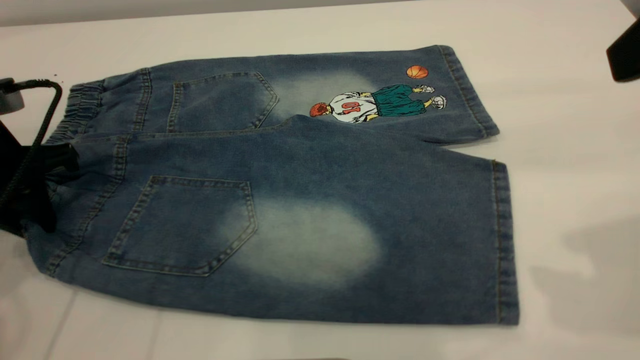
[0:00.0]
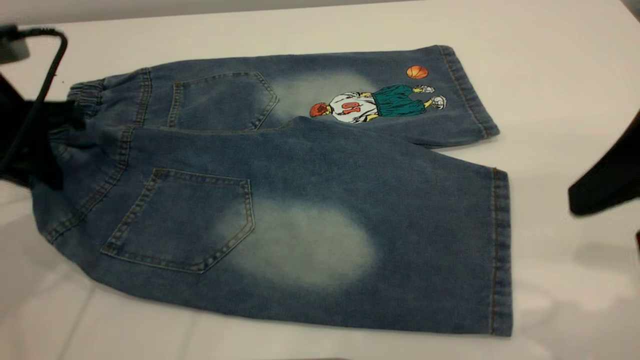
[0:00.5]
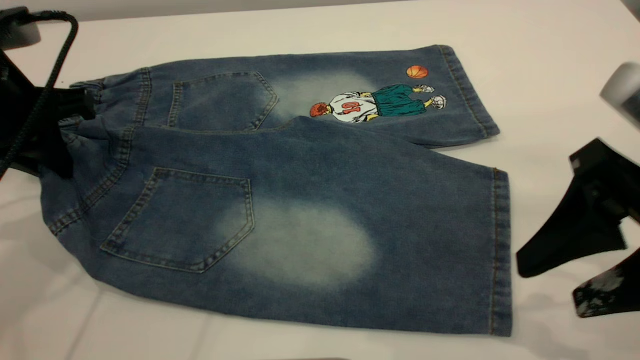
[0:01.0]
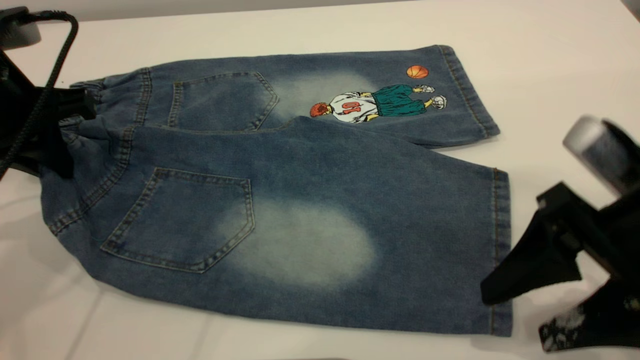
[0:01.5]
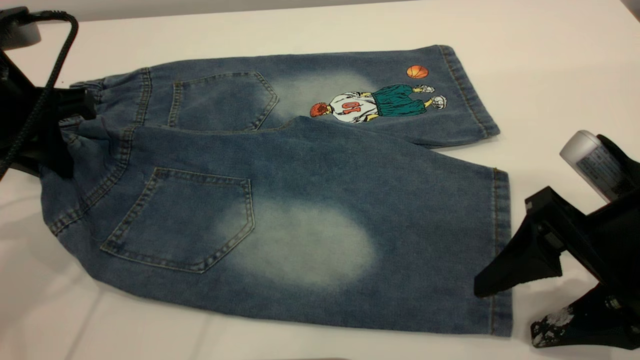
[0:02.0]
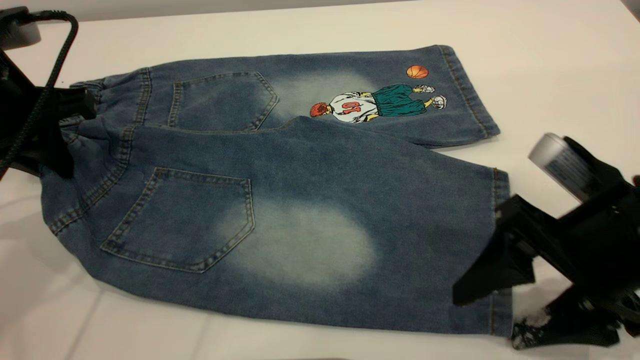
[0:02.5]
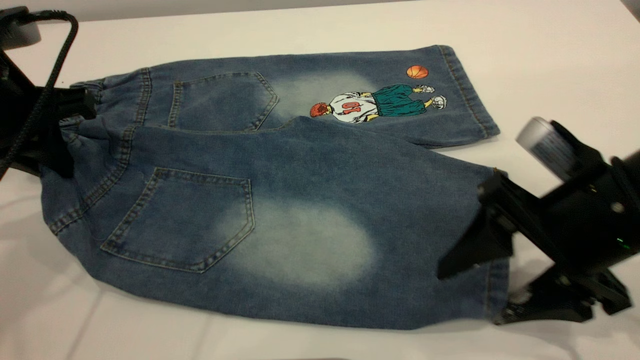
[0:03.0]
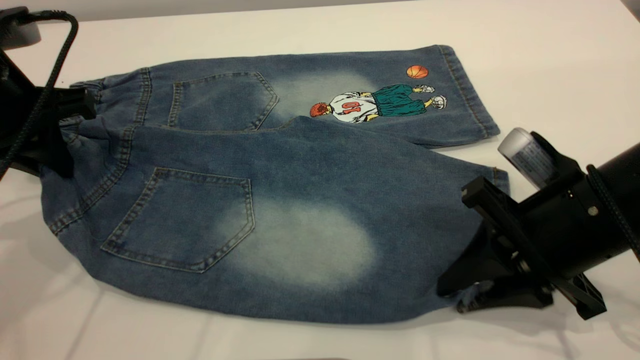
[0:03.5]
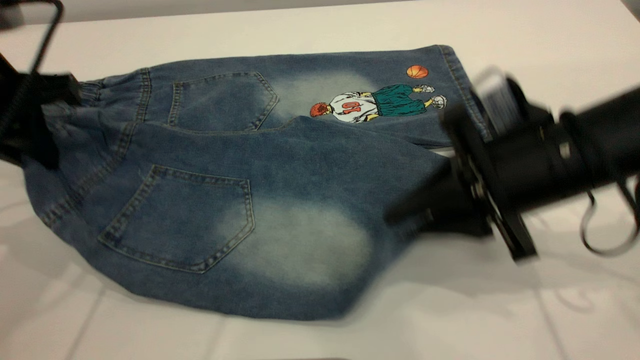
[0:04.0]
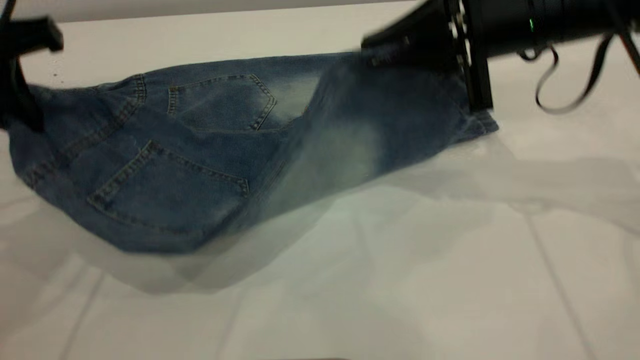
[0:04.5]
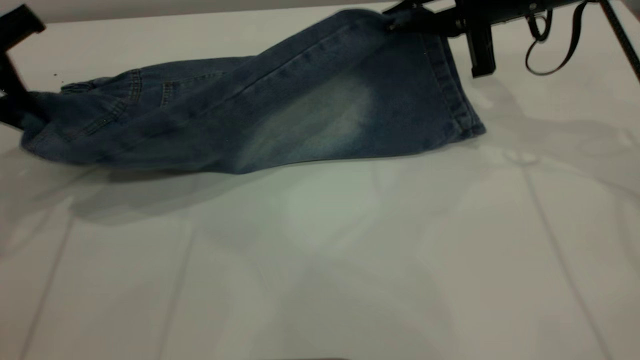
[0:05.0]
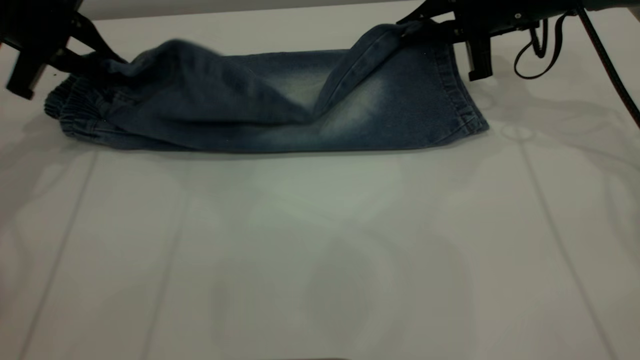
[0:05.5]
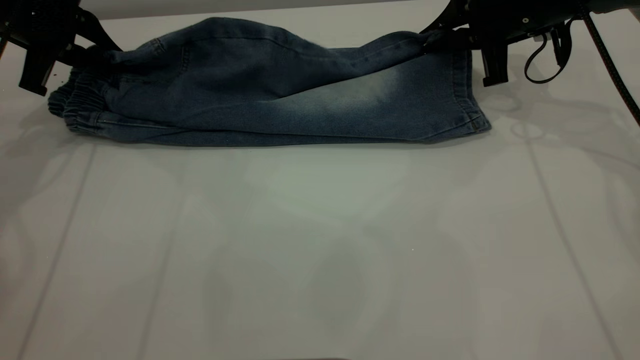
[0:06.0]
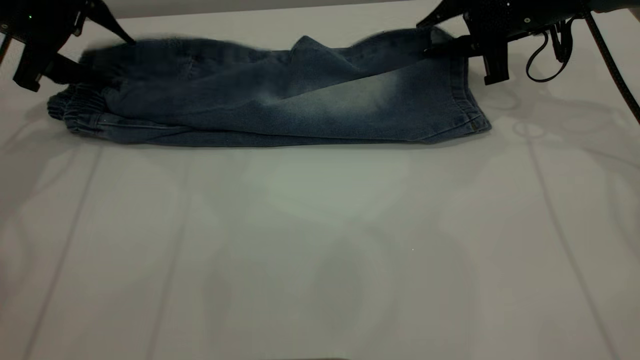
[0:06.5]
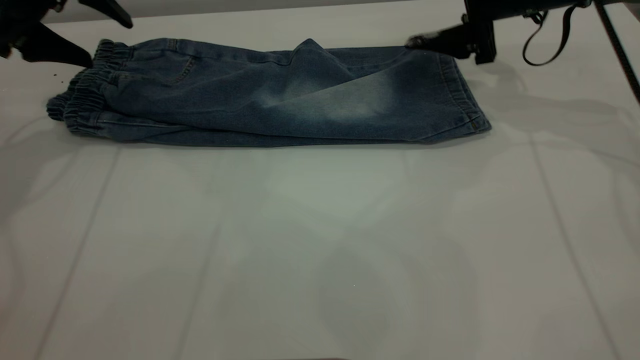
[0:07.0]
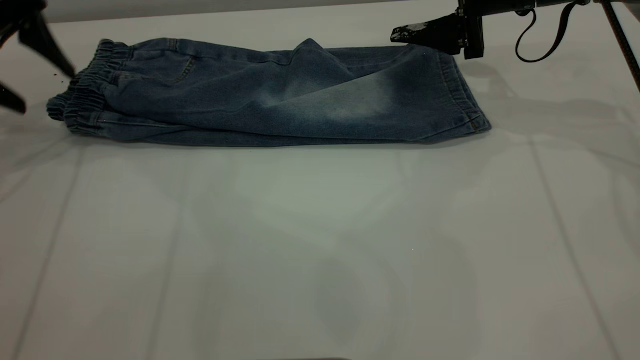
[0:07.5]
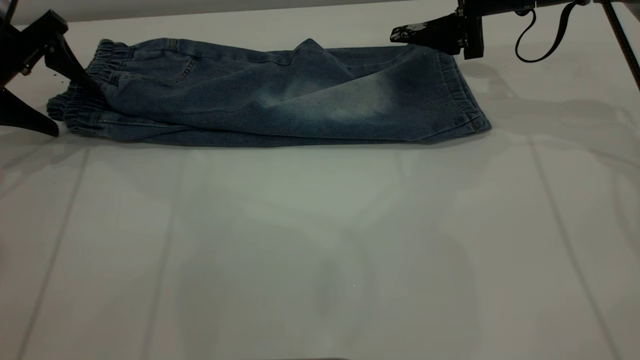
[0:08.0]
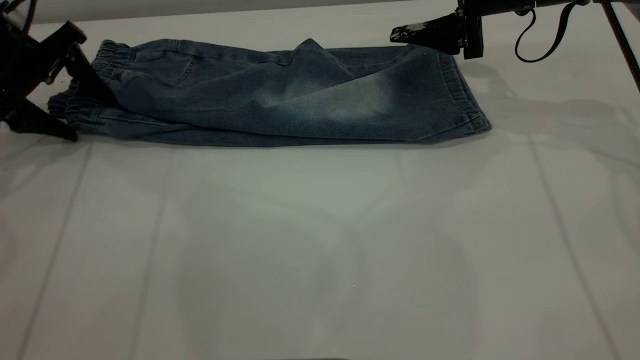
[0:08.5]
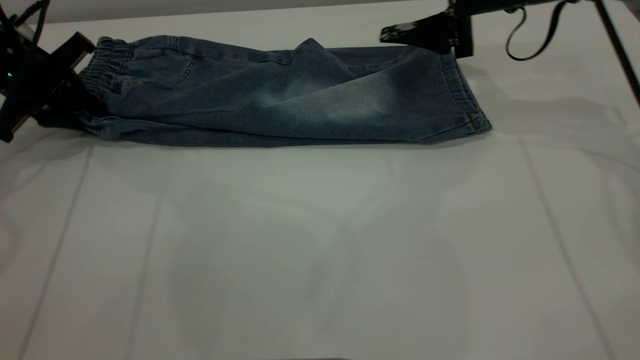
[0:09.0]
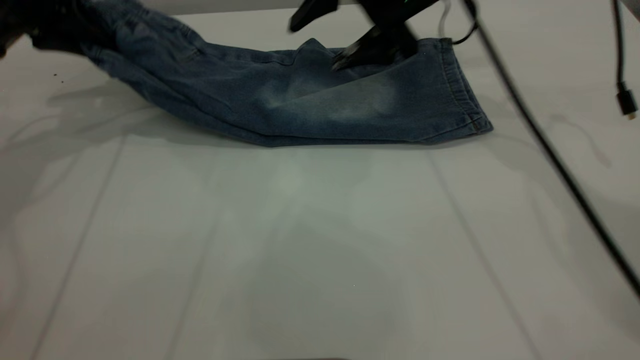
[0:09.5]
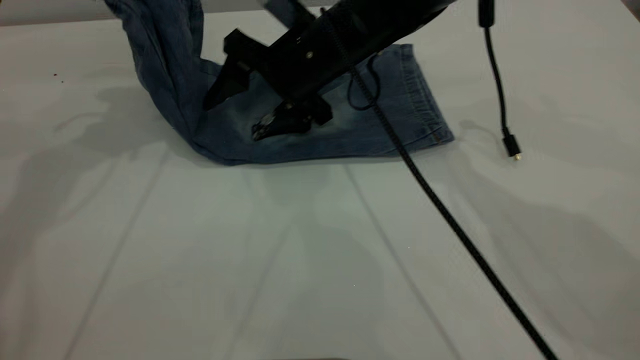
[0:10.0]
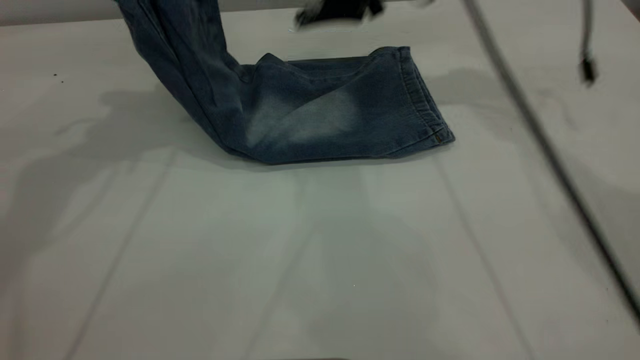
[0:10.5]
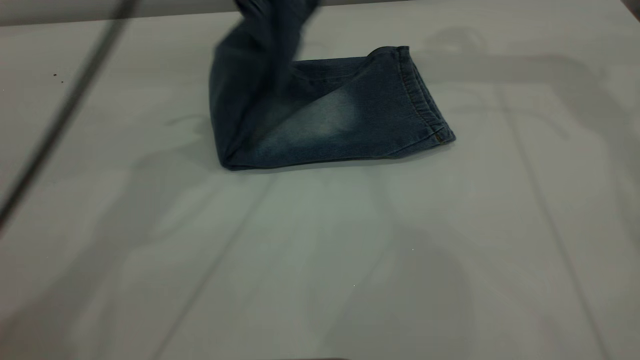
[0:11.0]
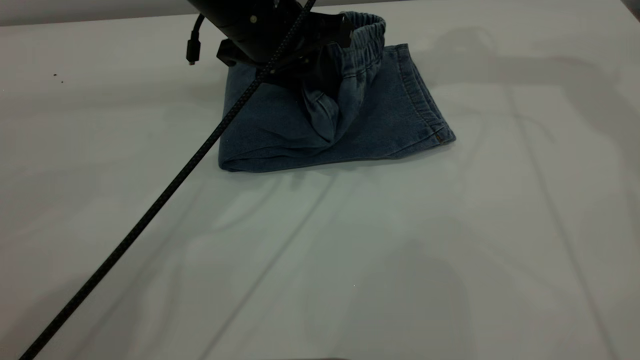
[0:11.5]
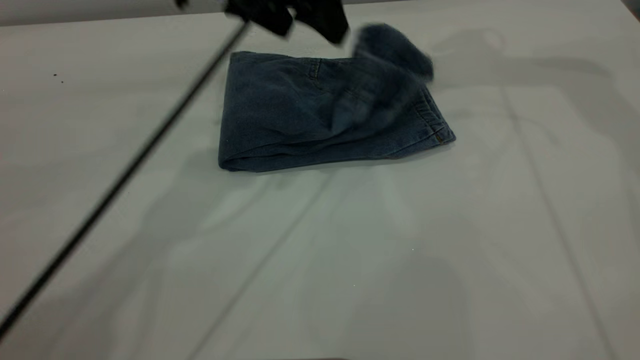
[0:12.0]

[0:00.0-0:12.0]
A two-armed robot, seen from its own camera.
Step, 0:00.0 to 0:07.0: Fold the bottom of the pants upward.
0:00.0 to 0:02.0: The left gripper changes place by some 5 cm. The right gripper heads downward, covering about 20 cm.
0:02.0 to 0:04.0: The right gripper is displaced forward and to the left by roughly 10 cm, and closes its fingers.
0:04.0 to 0:06.0: Both grippers travel together forward, approximately 15 cm.
0:06.0 to 0:08.0: The left gripper opens. The right gripper opens its fingers.
0:08.0 to 0:10.0: The left gripper moves upward and to the right, roughly 15 cm, and closes its fingers. The right gripper goes roughly 20 cm to the left.
0:10.0 to 0:12.0: The left gripper goes some 15 cm to the right, and opens its fingers. Meanwhile the right gripper goes some 30 cm upward and to the right.

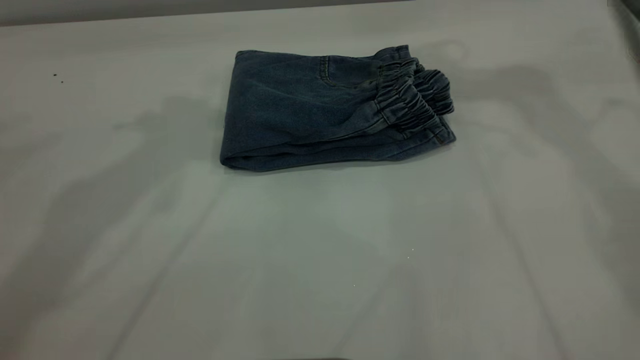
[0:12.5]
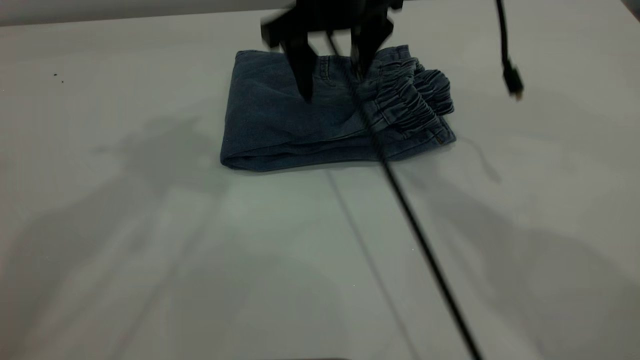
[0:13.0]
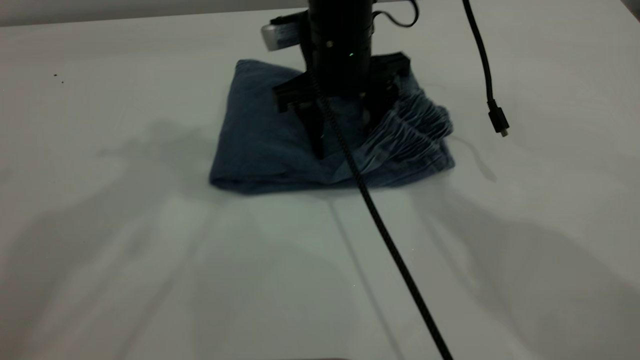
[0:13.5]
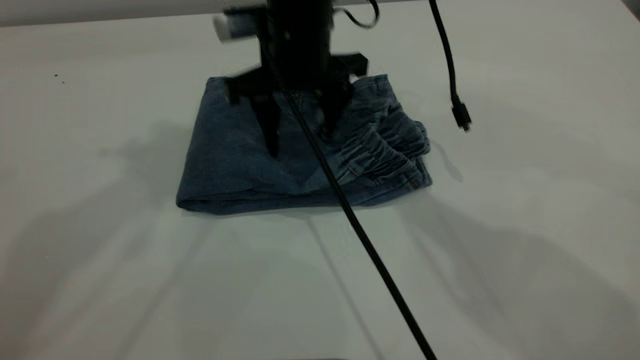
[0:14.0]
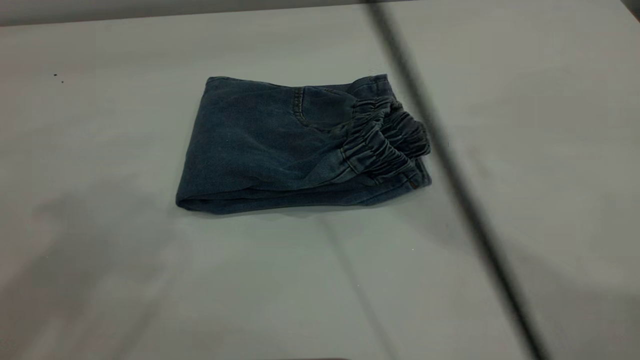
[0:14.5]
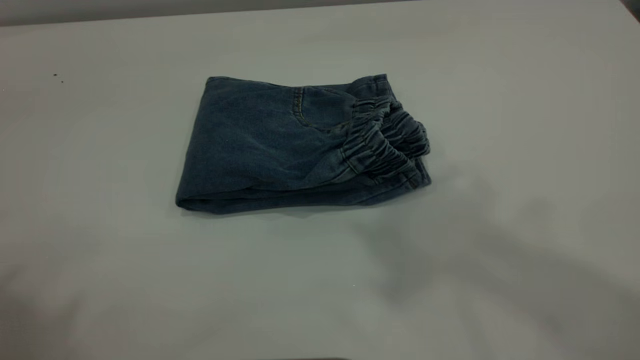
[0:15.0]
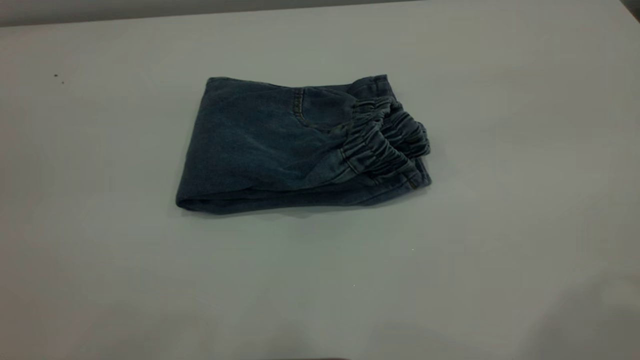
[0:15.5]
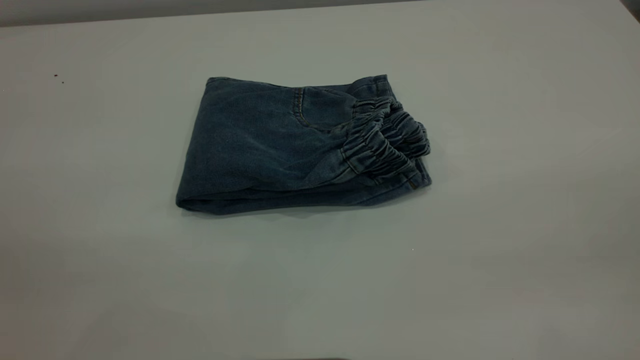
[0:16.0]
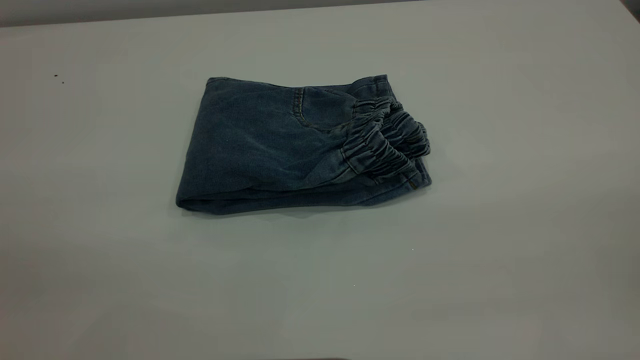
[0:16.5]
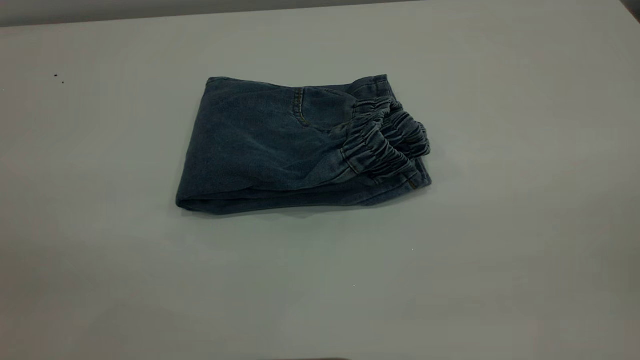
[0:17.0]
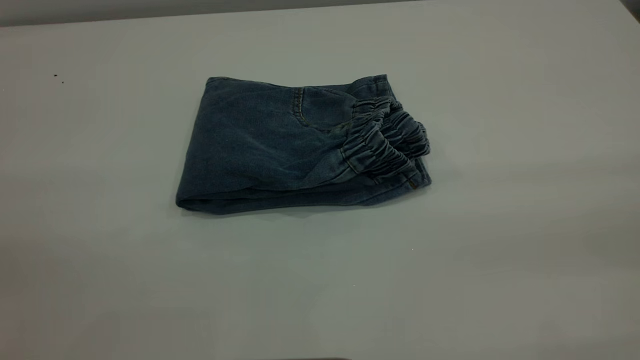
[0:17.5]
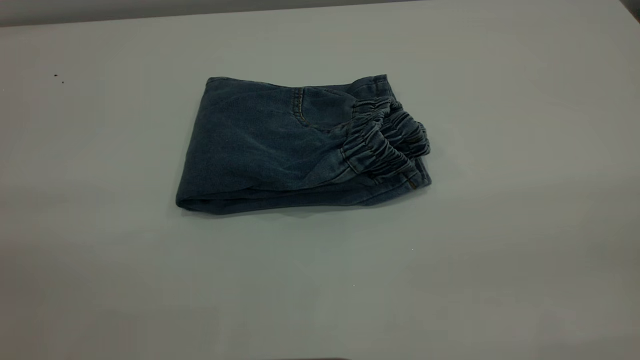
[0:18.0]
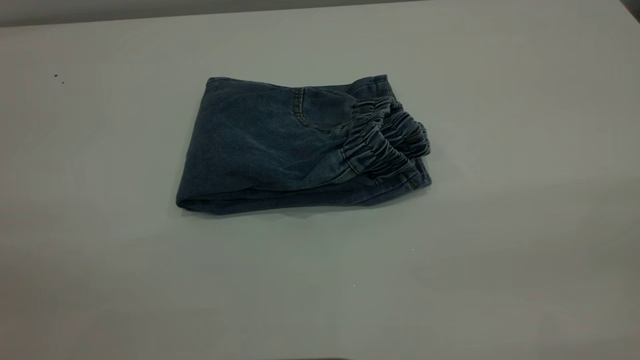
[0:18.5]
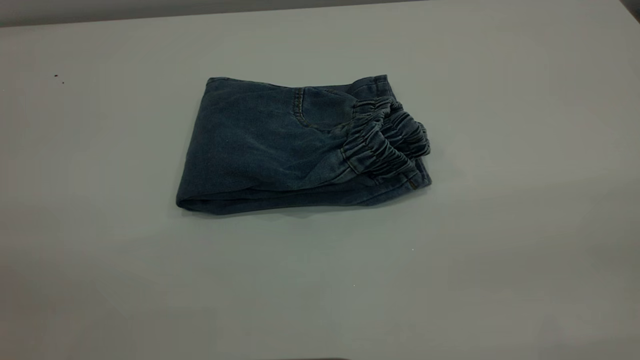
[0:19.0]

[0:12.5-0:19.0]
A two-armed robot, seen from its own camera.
0:12.5 to 0:14.5: The left gripper travels backward and upward by roughly 15 cm. The right gripper travels to the left, upward and backward by about 20 cm.
0:14.5 to 0:17.0: The left gripper shifts approximately 25 cm backward and downward. The right gripper goes approximately 40 cm backward and to the right.
